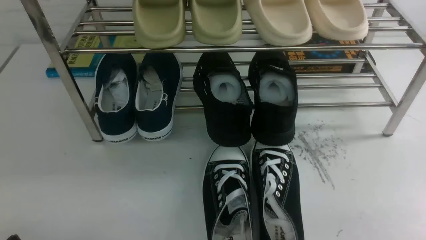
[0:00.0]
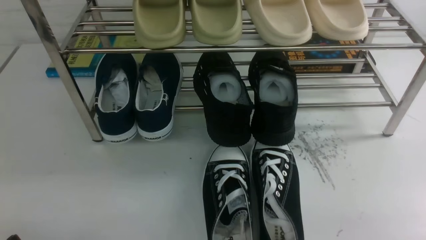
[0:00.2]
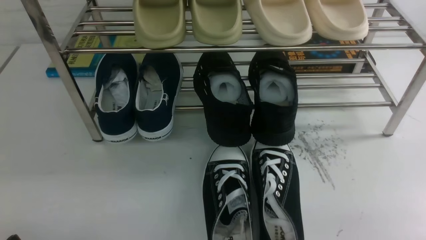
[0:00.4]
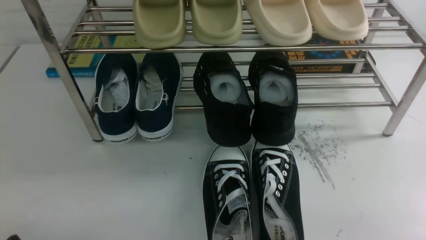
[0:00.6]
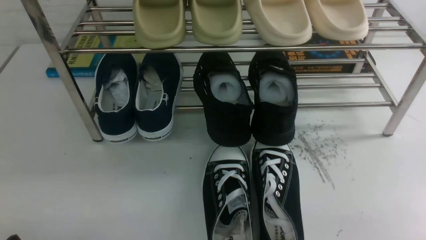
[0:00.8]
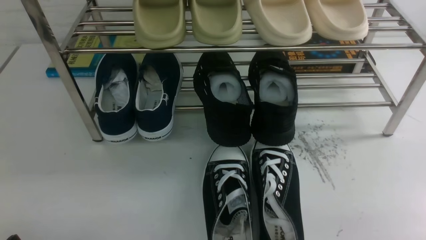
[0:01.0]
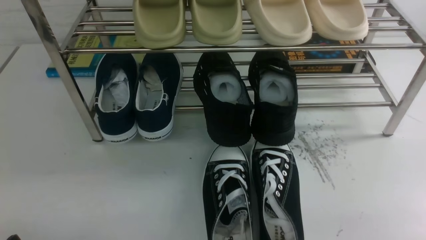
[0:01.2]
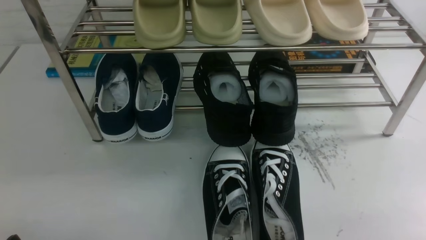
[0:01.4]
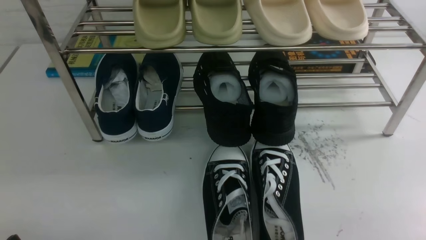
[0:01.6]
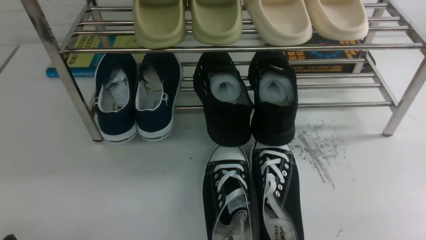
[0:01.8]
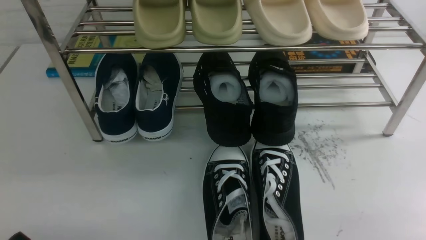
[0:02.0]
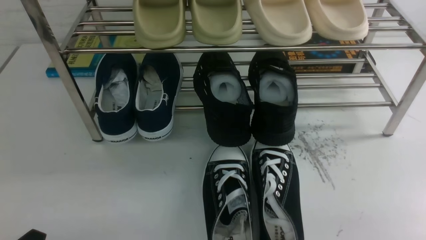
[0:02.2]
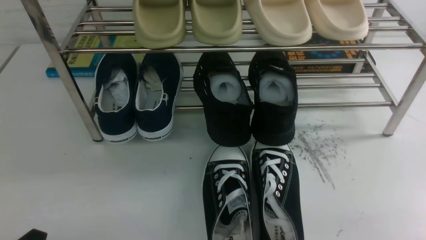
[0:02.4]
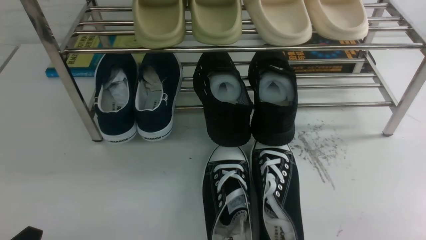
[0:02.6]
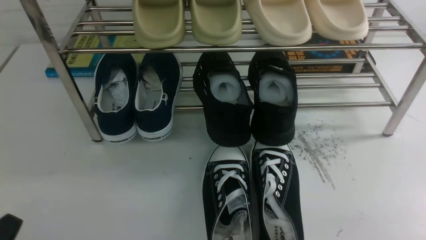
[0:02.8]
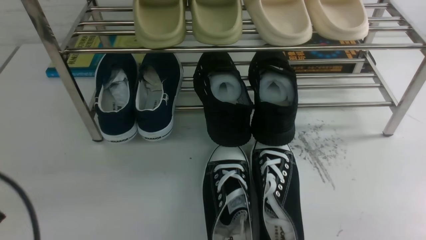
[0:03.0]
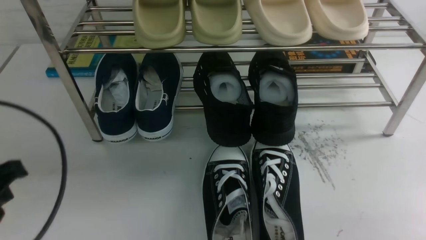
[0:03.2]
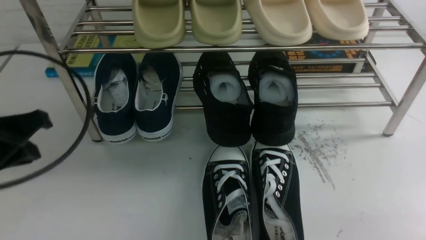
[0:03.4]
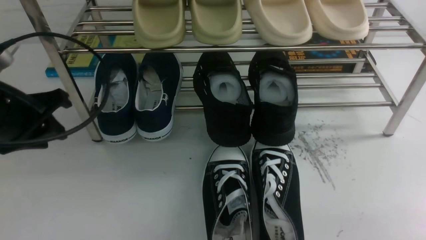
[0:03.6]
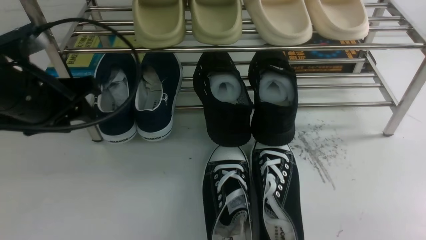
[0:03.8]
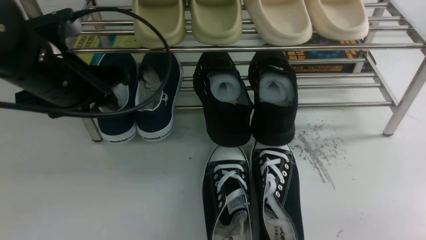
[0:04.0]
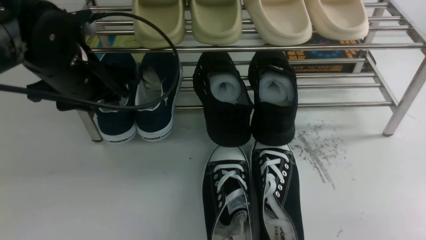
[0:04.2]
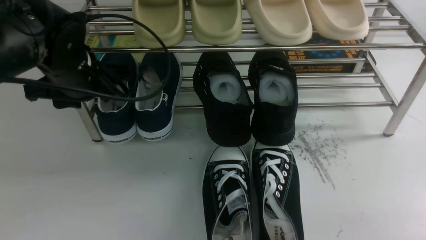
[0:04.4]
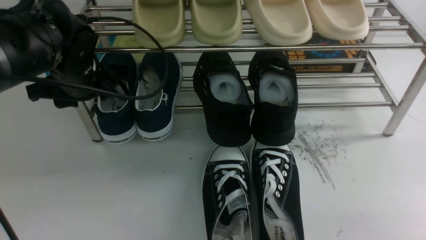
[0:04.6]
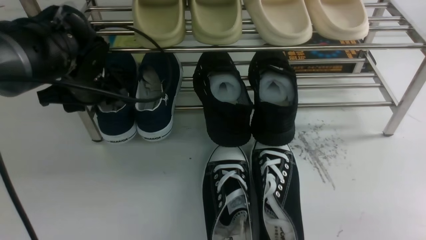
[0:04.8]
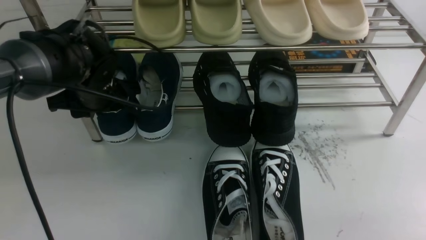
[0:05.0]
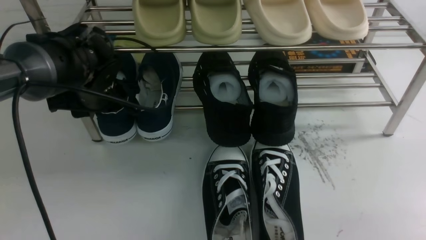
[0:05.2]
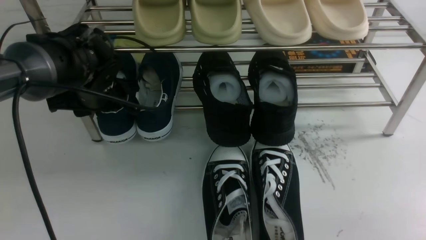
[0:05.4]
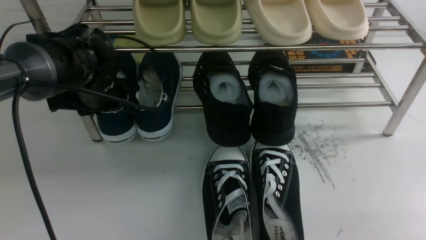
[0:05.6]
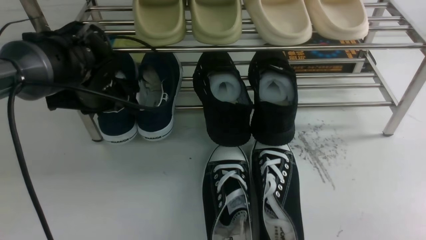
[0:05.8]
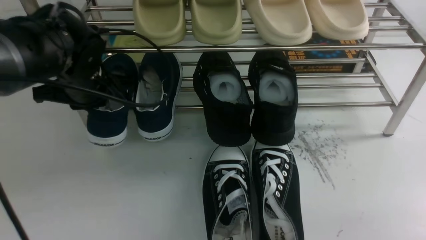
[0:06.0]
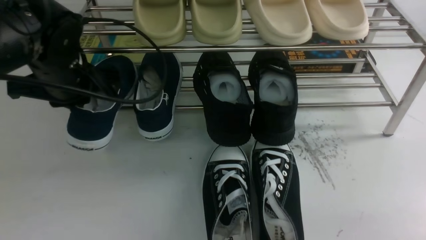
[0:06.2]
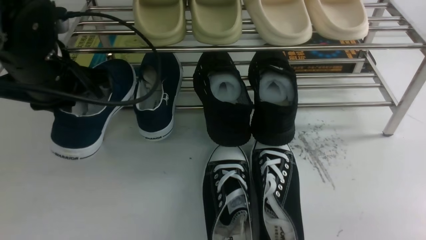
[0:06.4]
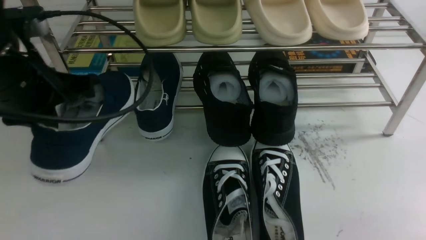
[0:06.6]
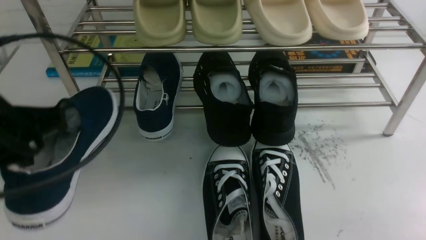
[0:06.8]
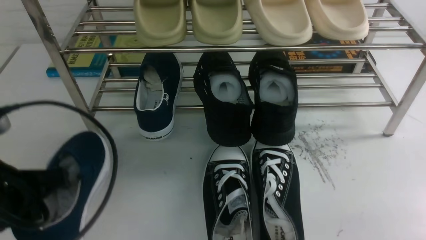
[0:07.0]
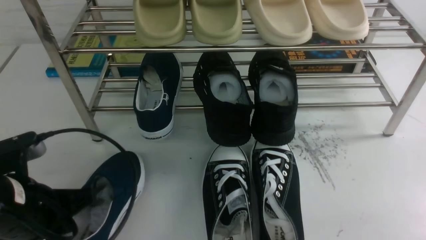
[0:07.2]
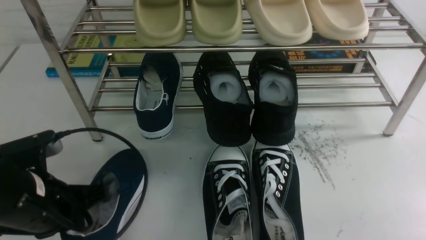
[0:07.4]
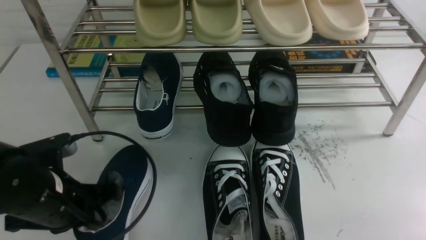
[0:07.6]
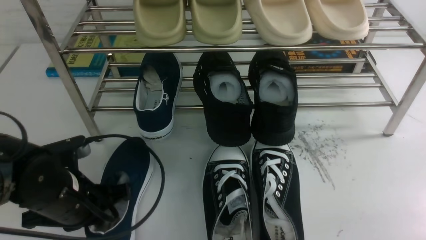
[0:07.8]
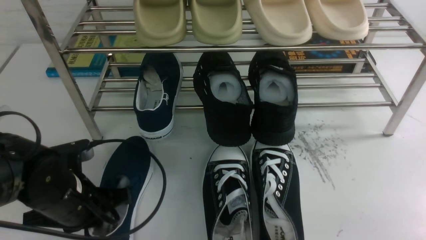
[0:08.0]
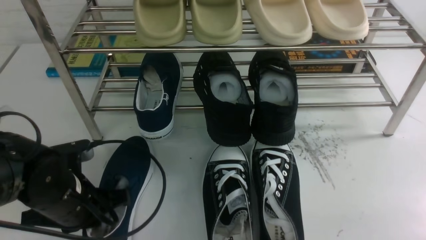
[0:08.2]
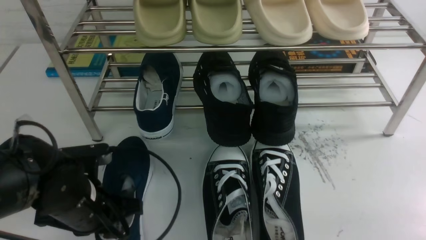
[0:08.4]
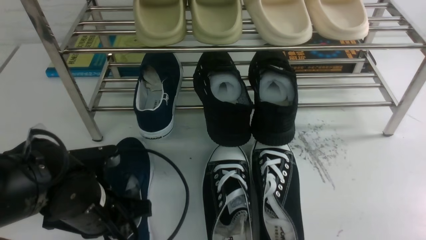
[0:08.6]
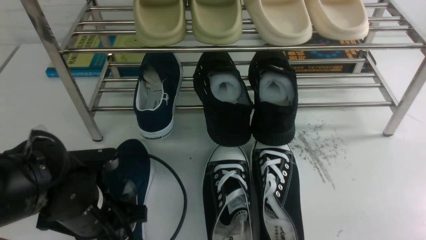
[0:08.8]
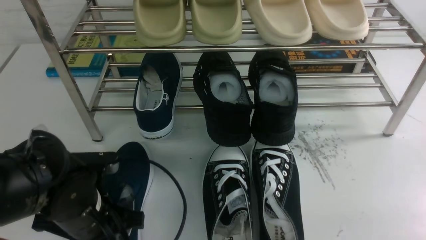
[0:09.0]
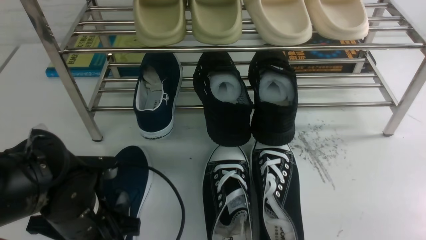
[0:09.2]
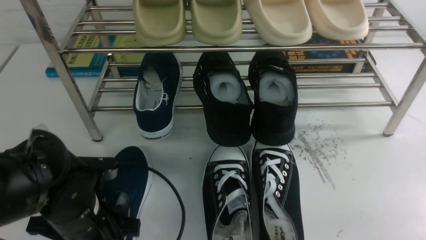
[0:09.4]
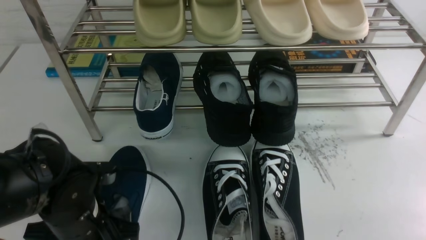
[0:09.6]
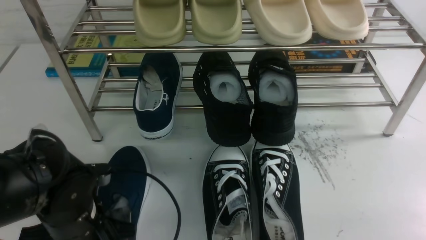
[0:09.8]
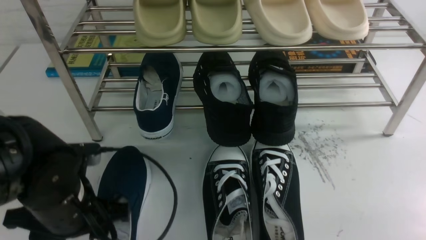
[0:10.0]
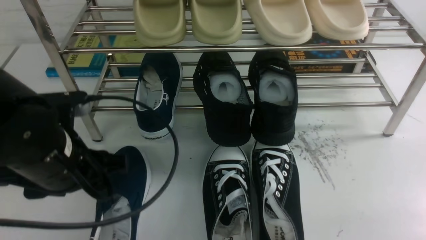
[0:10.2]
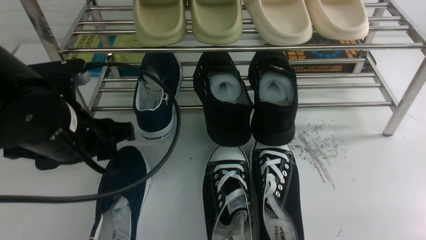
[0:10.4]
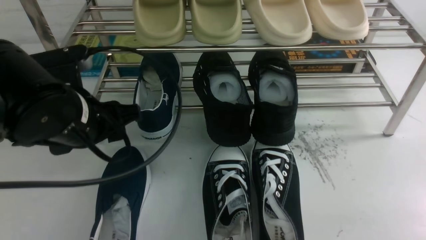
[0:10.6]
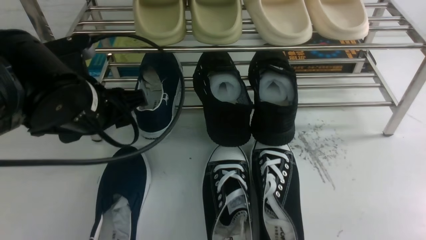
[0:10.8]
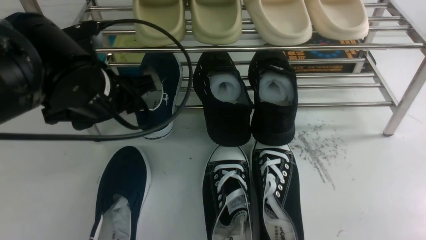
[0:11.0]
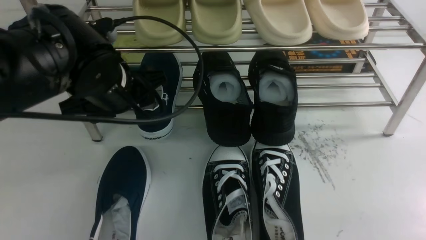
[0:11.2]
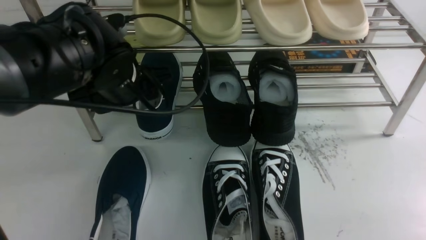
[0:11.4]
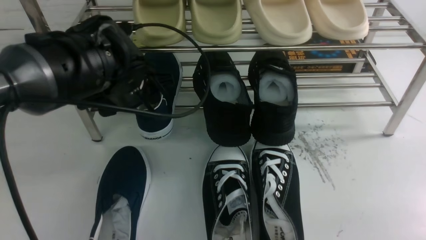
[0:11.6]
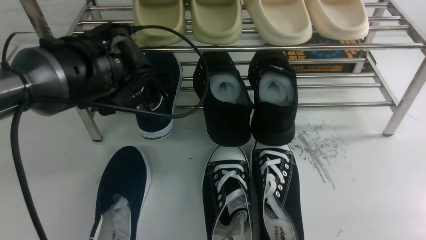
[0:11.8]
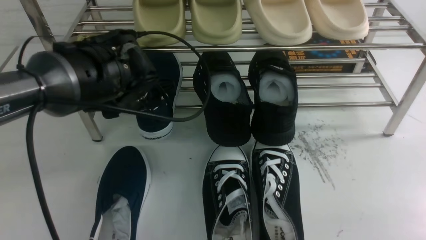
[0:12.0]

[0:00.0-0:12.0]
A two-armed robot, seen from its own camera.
Step, 0:00.0 to 0:06.0: use the left arm to clamp a shoe on the left side of the shoe rack.
Step, 0:06.2 to 0:10.2: Use your left arm to remove the clamped shoe from the shoe rack and put it down.
0:00.0 to 0:01.6: Neither gripper changes place.
0:01.6 to 0:03.0: The left gripper travels upward by some 10 cm, and closes its fingers.
0:03.0 to 0:04.4: The left gripper is displaced forward by some 25 cm, and opens up.
0:04.4 to 0:06.0: The left gripper closes.
0:06.0 to 0:07.6: The left gripper is displaced backward and downward by approximately 15 cm.
0:07.6 to 0:09.0: The grippers stay close to where they were, moving slightly.
0:09.0 to 0:10.4: The left gripper travels upward by approximately 10 cm, and opens up.
0:10.4 to 0:12.0: The left gripper heads forward and to the right, covering some 15 cm.

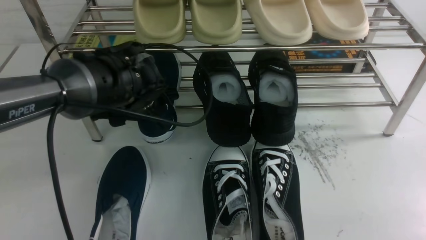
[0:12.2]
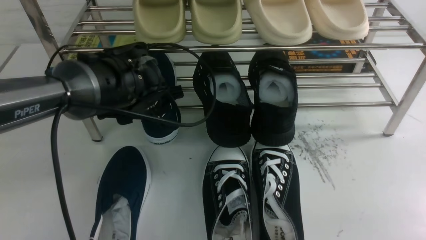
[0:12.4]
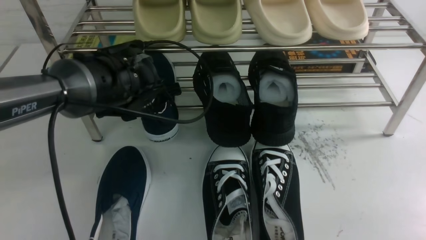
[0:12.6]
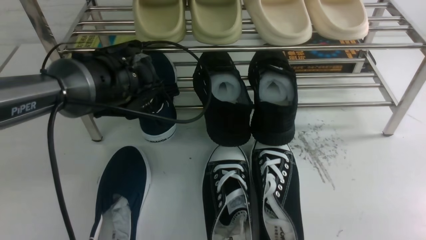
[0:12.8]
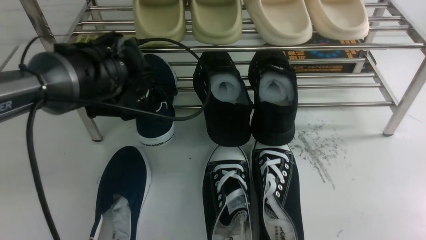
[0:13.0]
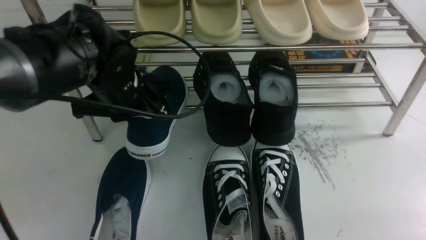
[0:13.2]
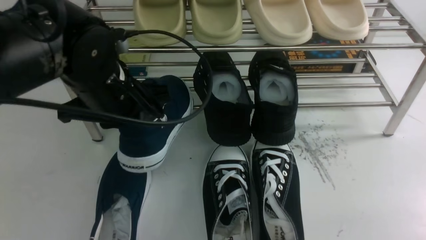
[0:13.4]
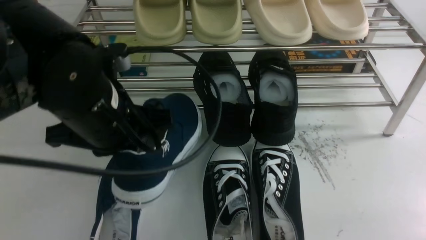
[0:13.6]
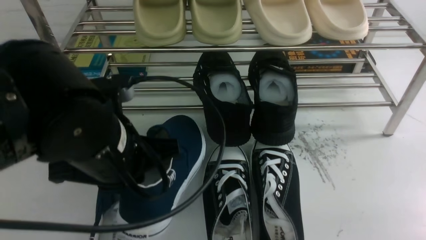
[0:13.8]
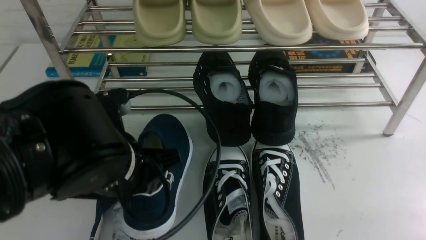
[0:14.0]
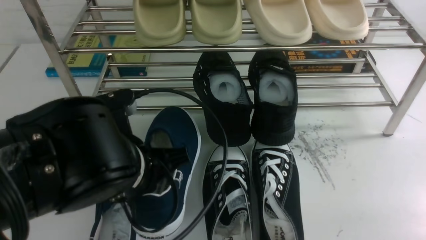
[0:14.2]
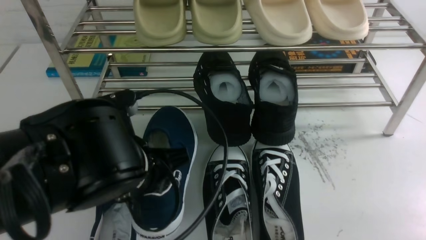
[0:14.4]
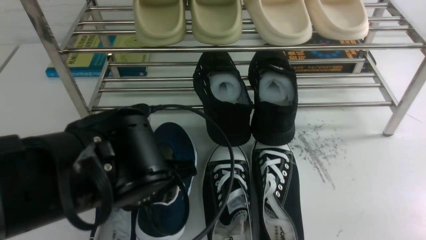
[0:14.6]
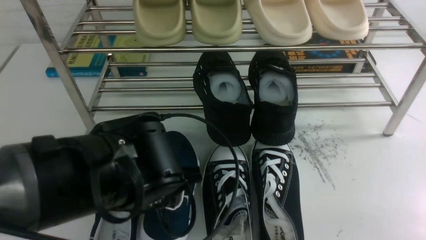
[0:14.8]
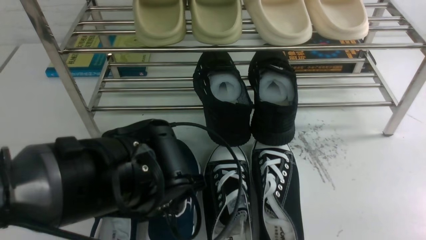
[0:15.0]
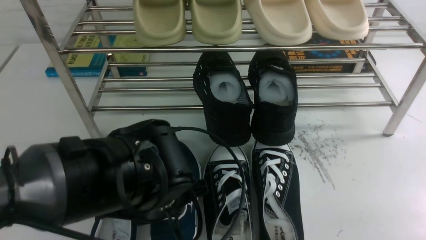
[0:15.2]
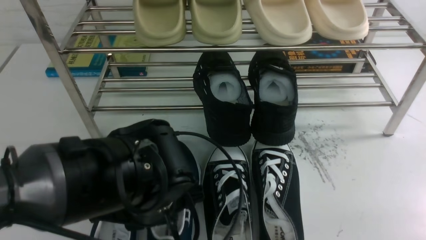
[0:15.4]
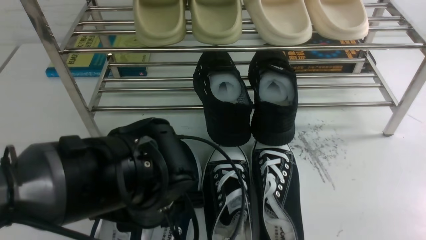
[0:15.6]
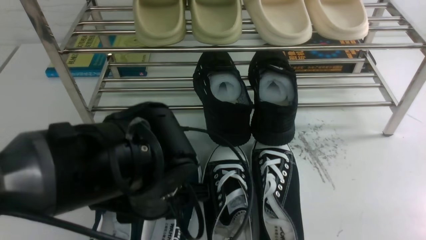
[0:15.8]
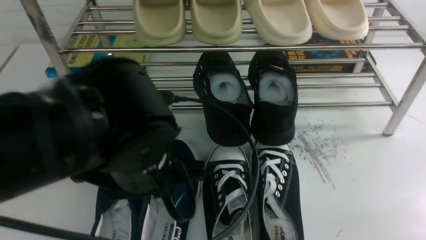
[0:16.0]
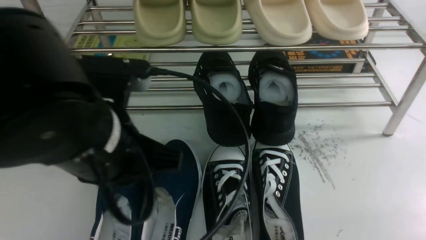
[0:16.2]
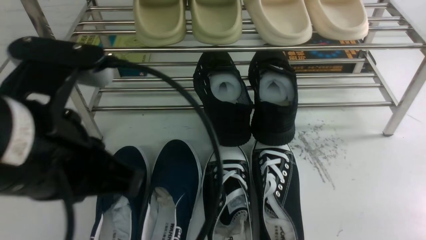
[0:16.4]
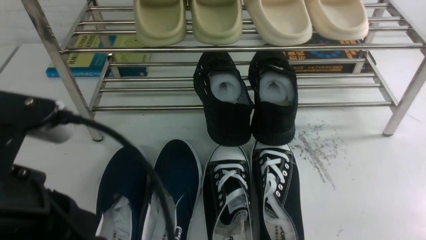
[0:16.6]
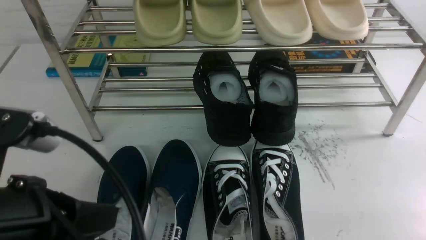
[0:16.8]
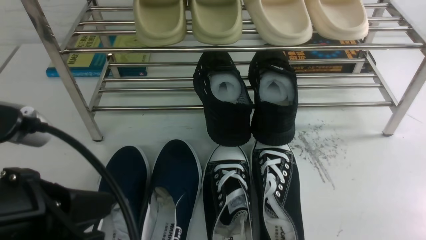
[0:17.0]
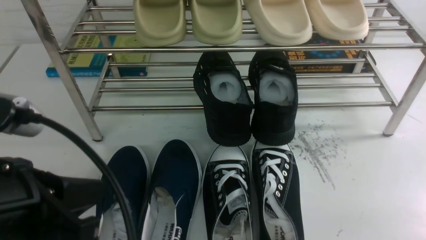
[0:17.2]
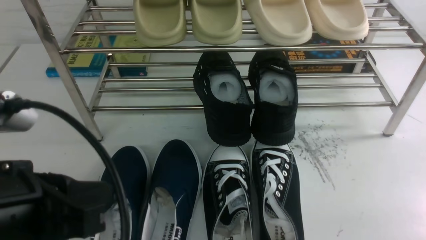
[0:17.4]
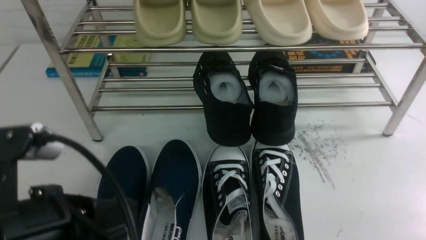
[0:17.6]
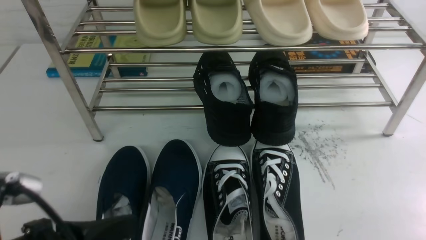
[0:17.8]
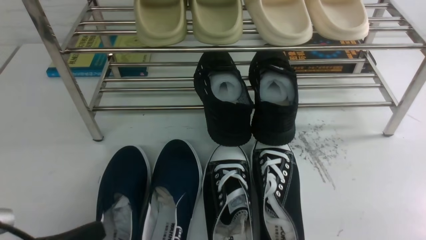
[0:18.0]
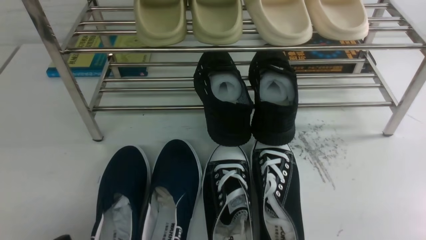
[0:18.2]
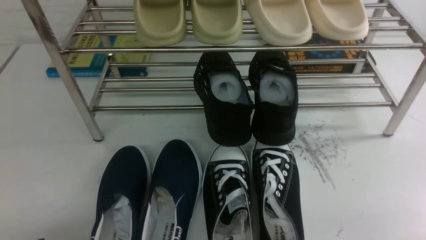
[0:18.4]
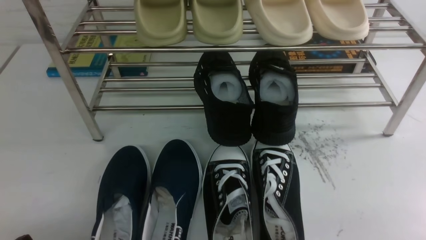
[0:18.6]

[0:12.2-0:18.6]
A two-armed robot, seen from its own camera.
Step, 0:13.4 to 0:15.8: Use your left arm to remove the clamped shoe from the shoe rack and put it down.
0:12.2 to 0:13.8: The left gripper travels backward and upward by some 15 cm, and closes its fingers.
0:13.8 to 0:15.4: The left gripper shifts some 10 cm downward, and opens up.
0:15.4 to 0:17.0: The left gripper goes about 20 cm upward, to the left and backward, and closes.
0:17.0 to 0:18.6: The left gripper heads downward and to the left, covering roughly 20 cm.
